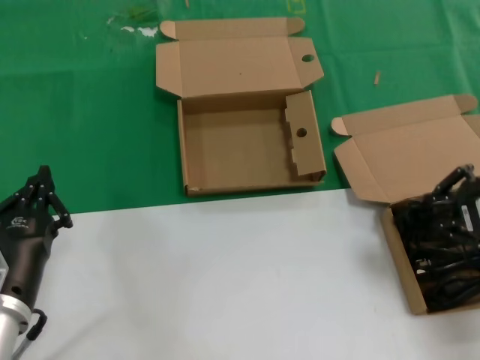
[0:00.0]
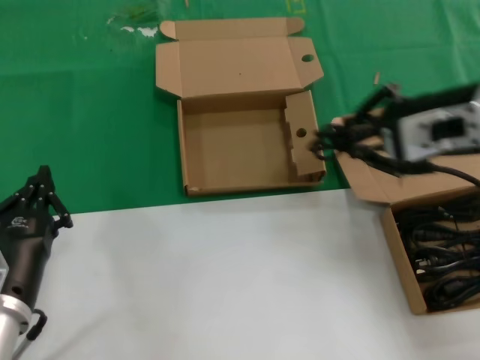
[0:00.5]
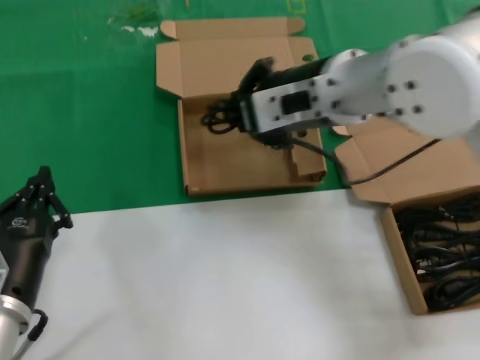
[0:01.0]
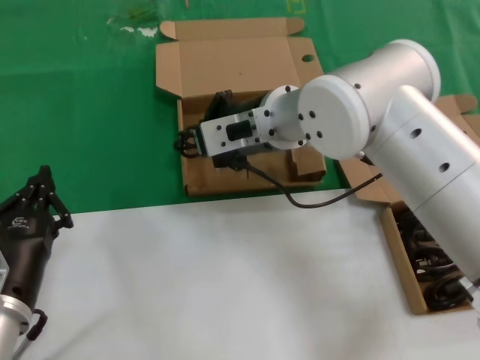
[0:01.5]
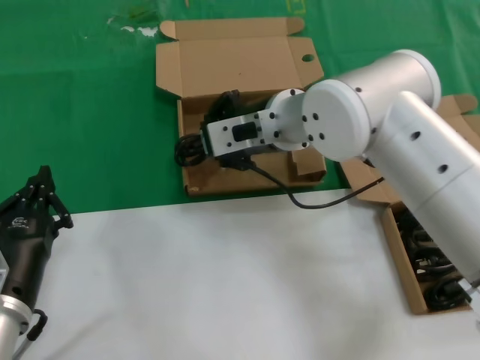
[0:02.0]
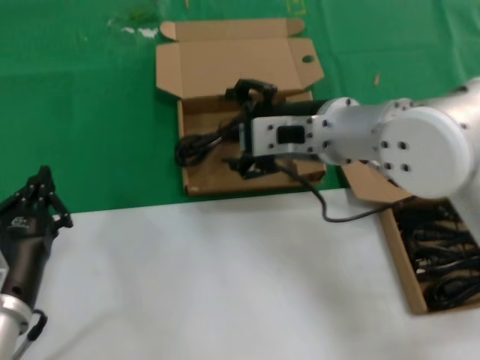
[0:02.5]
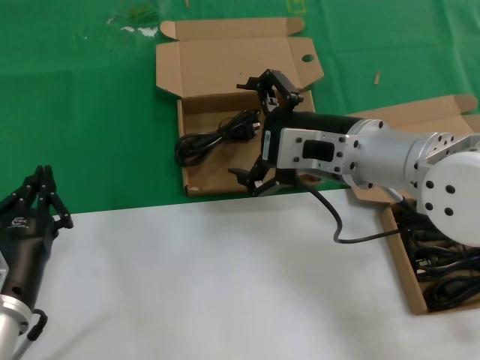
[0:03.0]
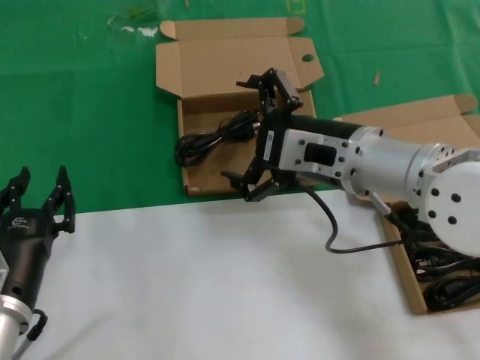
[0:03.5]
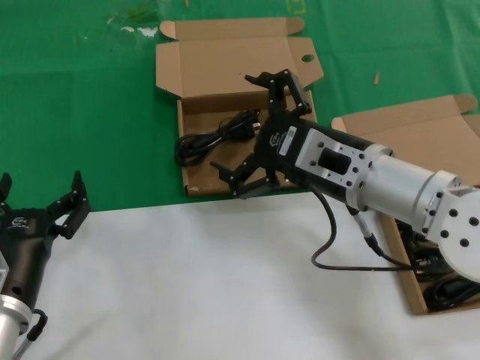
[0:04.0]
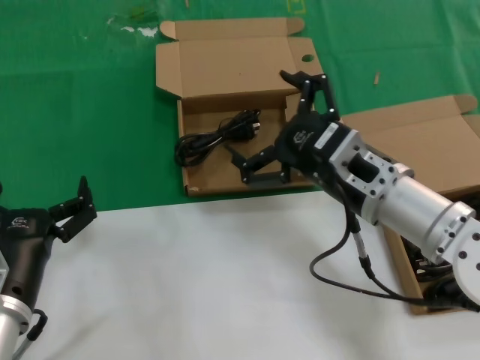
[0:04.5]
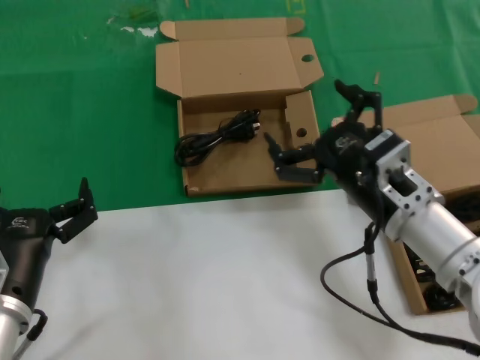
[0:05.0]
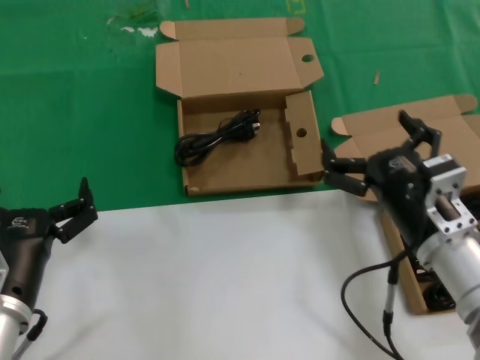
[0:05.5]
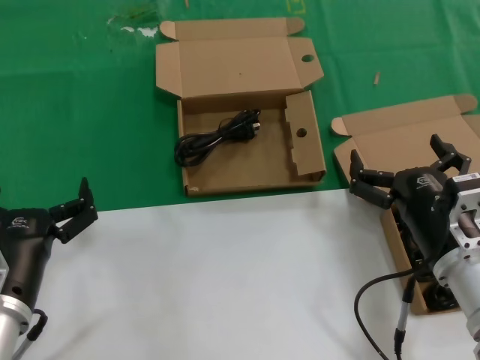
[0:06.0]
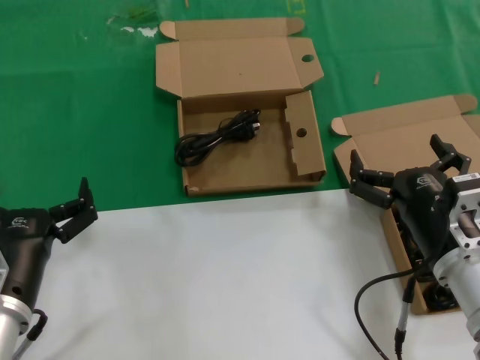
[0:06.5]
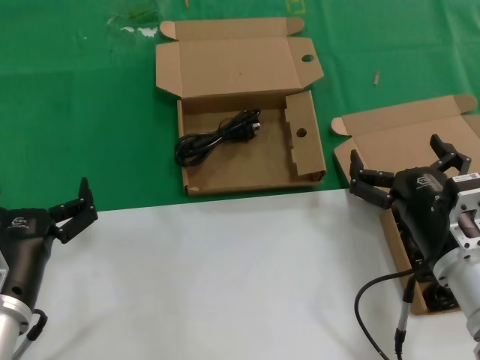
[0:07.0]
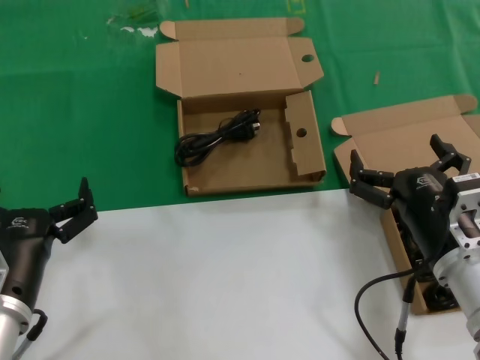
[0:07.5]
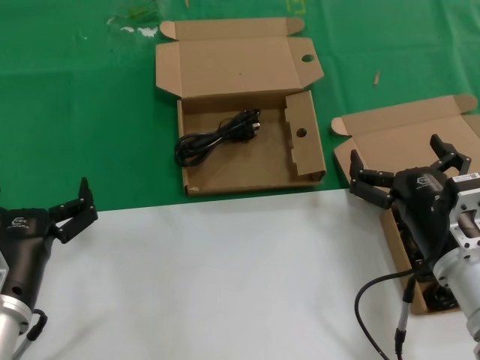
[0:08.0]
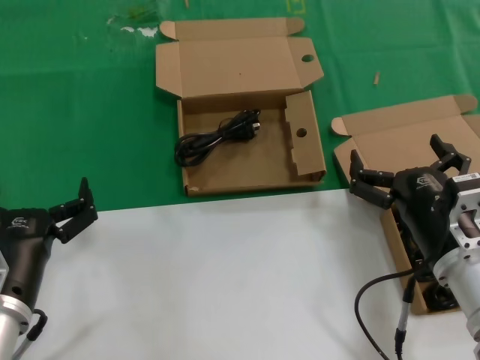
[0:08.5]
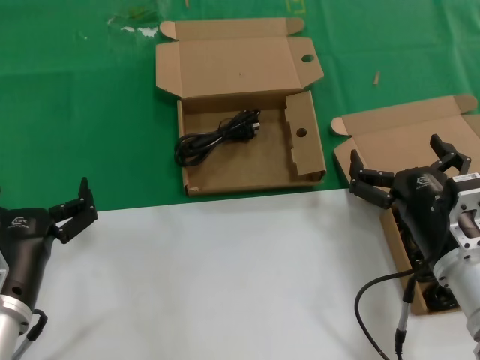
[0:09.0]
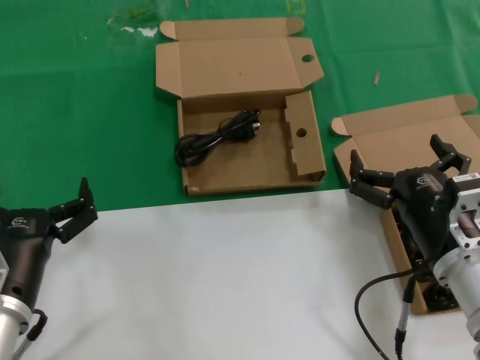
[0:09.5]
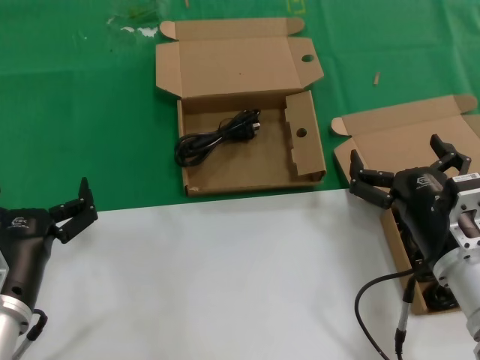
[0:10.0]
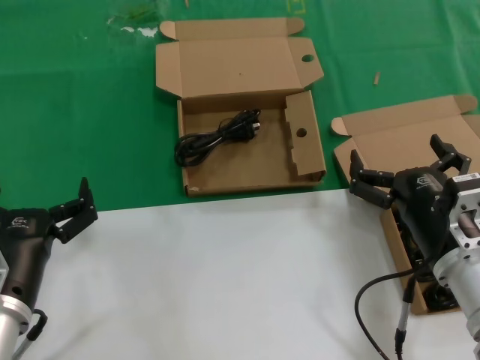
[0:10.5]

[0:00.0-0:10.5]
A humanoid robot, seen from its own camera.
Task of the whole recording: take the parts from the box containing them and put them into an empty box.
Step, 0:00.0 to 0:02.0: Place the data cable in the another box.
0:00.0 to 0:02.0: The right hand moves to the left and forward, about 30 cm.
0:02.0 to 0:04.0: The right hand goes approximately 15 cm backward and to the right.
0:04.0 to 0:06.5: The right hand moves downward, to the right and backward, roughly 15 cm.
0:06.5 to 0:10.5: Both hands stay put.

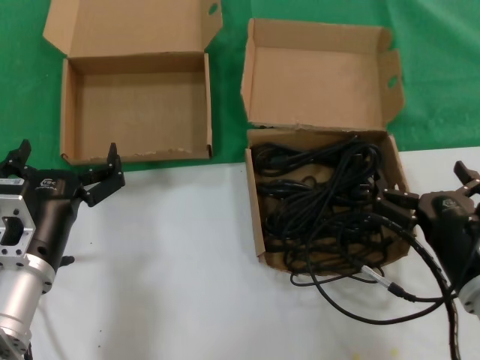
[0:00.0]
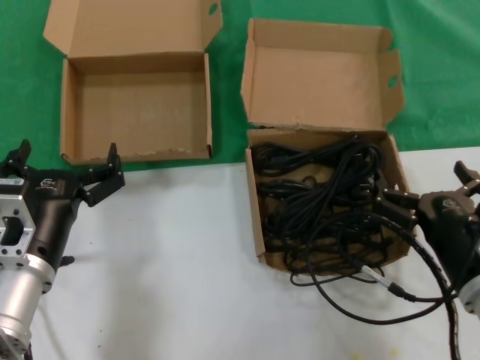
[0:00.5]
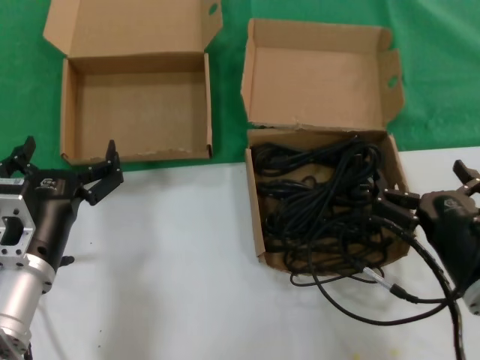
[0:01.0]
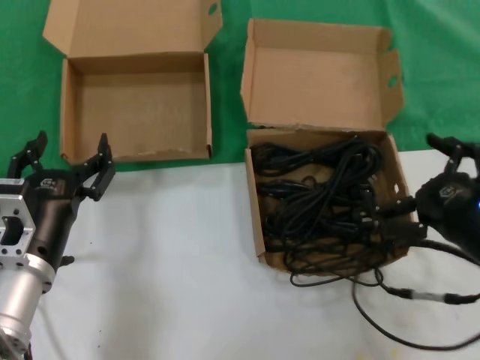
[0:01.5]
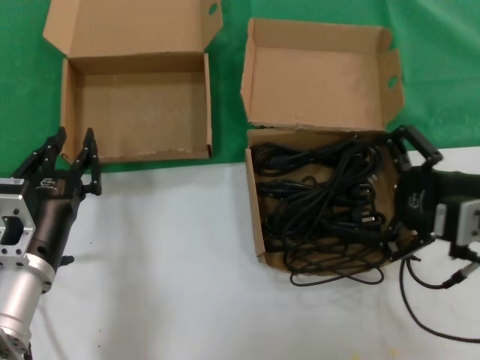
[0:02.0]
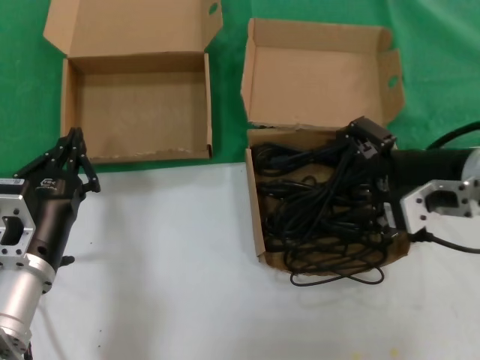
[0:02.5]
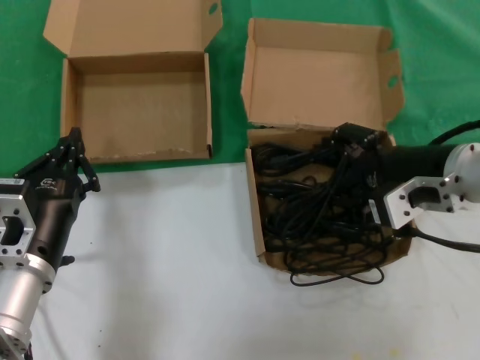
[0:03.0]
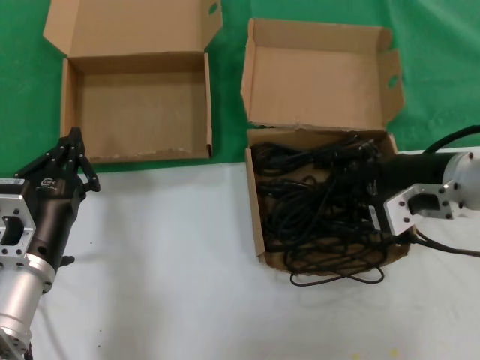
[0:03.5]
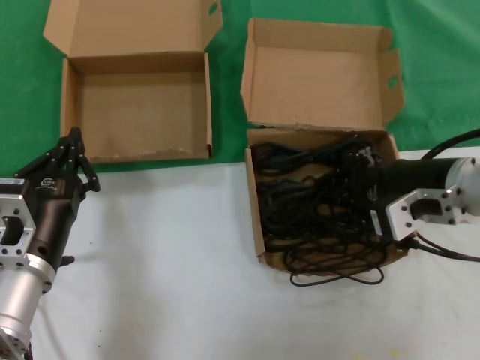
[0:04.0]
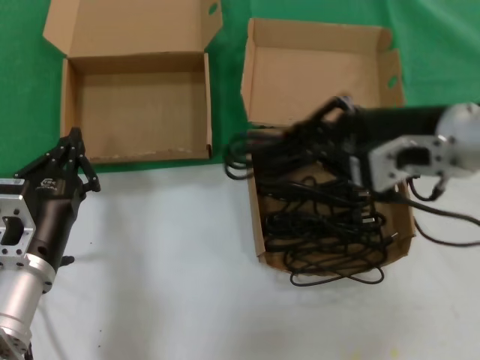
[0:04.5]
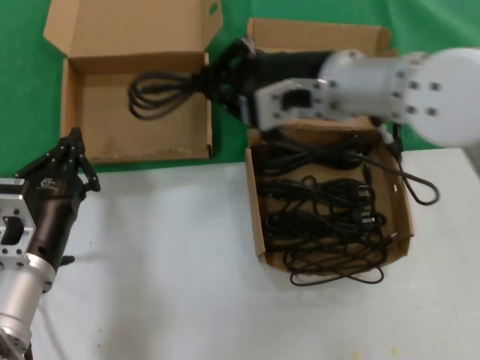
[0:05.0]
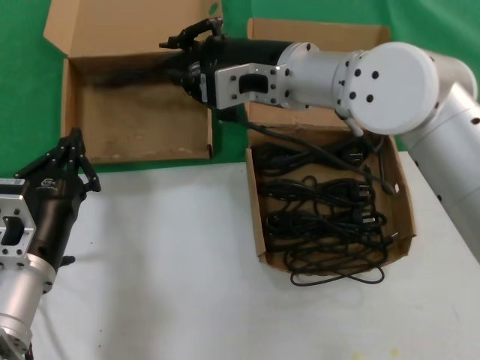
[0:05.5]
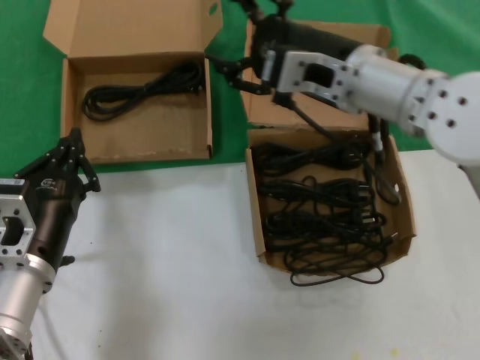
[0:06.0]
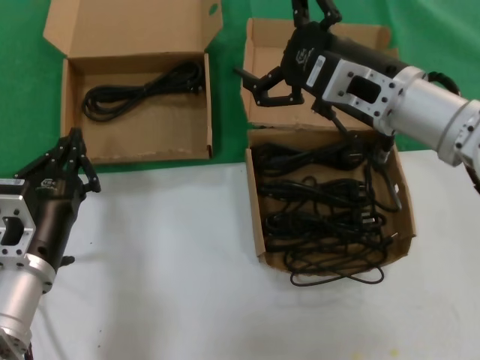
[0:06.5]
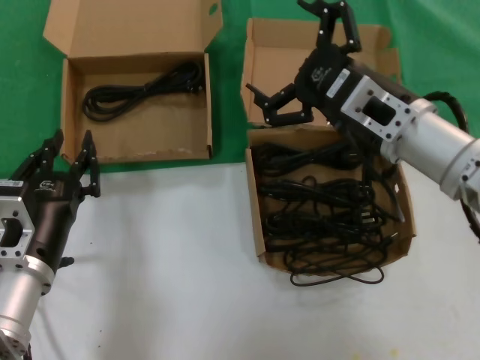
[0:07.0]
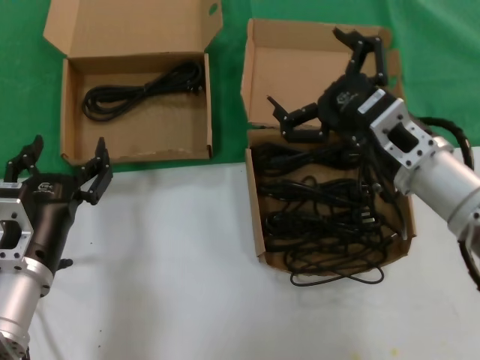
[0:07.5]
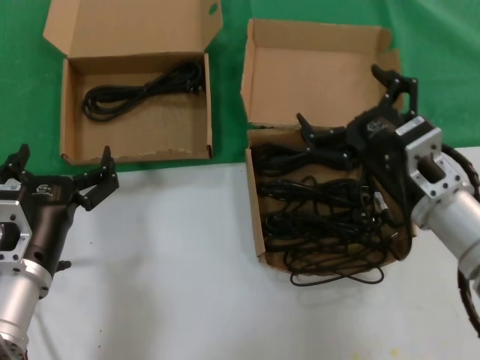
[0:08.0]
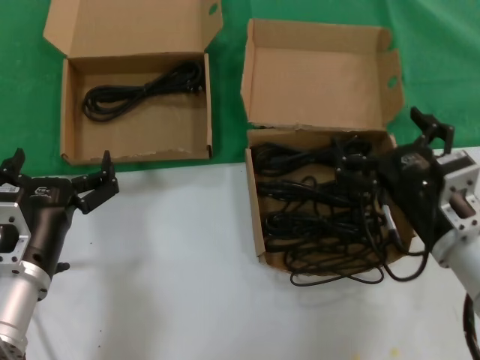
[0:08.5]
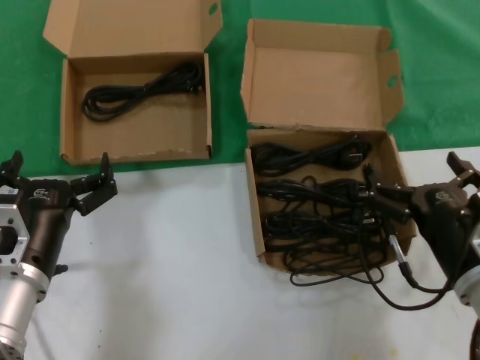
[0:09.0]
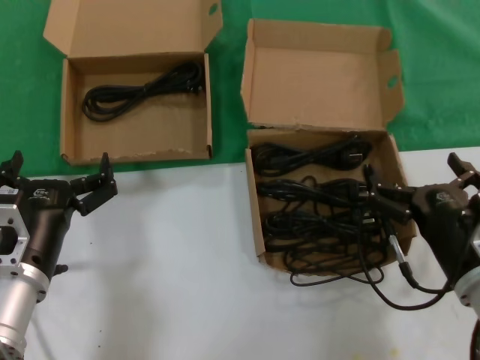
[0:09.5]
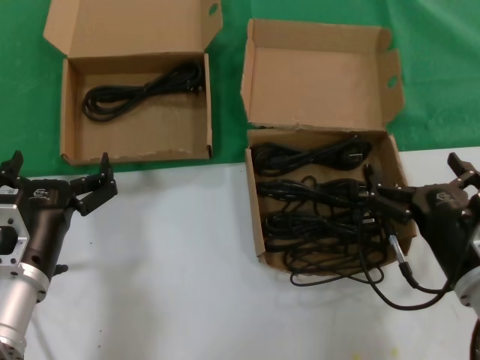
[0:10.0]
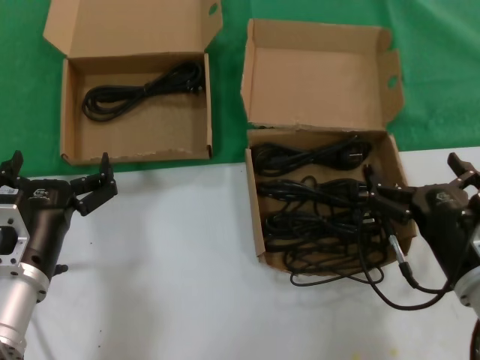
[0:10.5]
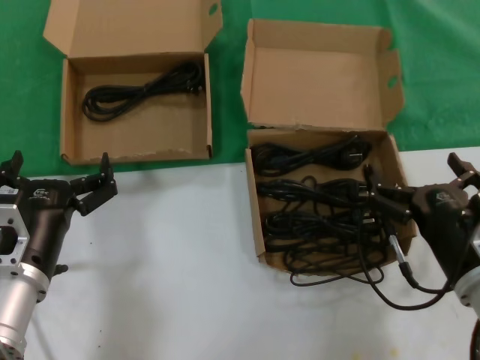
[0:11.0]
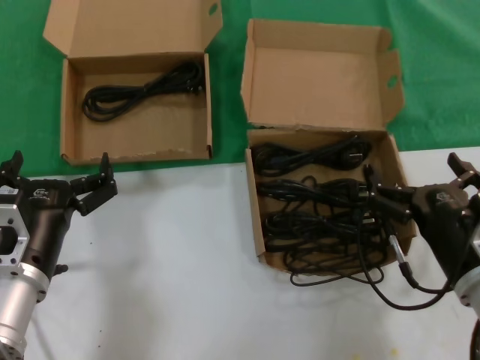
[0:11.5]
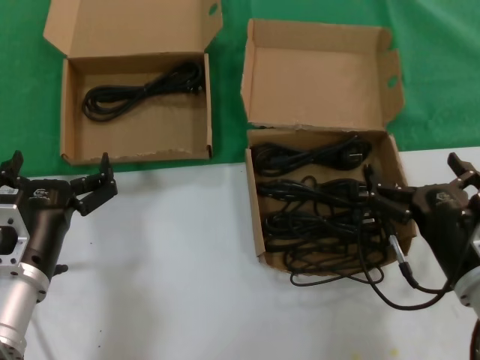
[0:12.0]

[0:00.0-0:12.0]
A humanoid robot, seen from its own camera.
Task of the whole recording: take the parts from the box containing them and put them into an empty box.
Step, 0:00.0 to 0:03.5: Grasp the data cable.
Step, 0:04.0 to 0:05.5: Place the data cable in the another box.
0:00.0 to 0:02.0: The right hand travels upward by some 15 cm.
0:02.0 to 0:04.0: The right hand moves forward and to the left, roughly 10 cm.
0:04.0 to 0:06.0: The right hand travels to the left, forward and upward by some 15 cm.
0:06.0 to 0:08.0: The right hand heads downward, backward and to the right, covering roughly 20 cm.
0:08.0 to 0:10.0: The right hand heads downward and backward, covering some 10 cm.
0:10.0 to 0:12.0: Neither hand changes place.

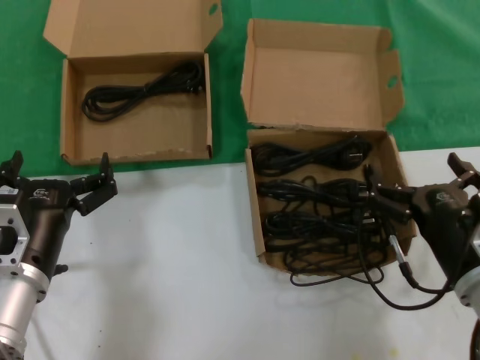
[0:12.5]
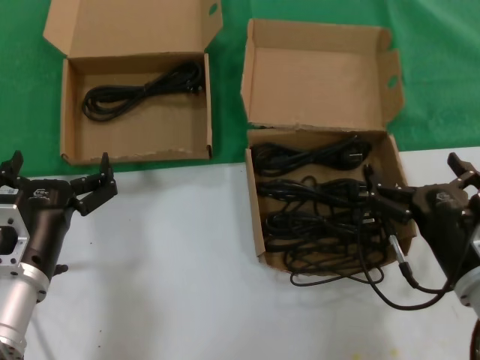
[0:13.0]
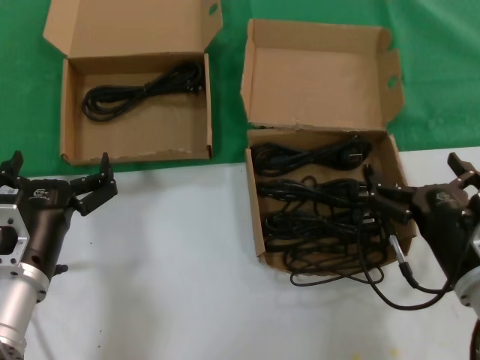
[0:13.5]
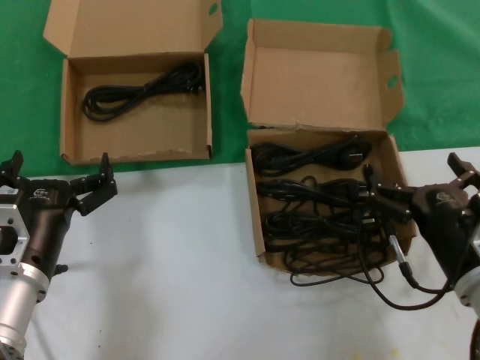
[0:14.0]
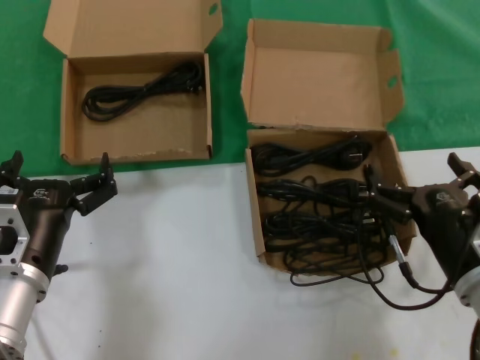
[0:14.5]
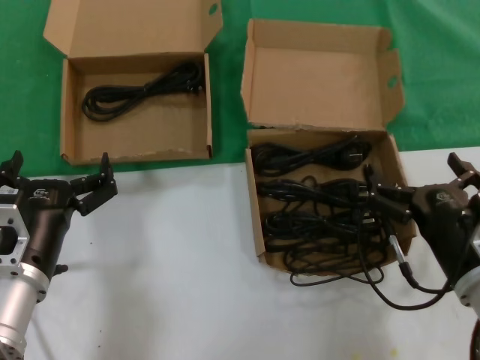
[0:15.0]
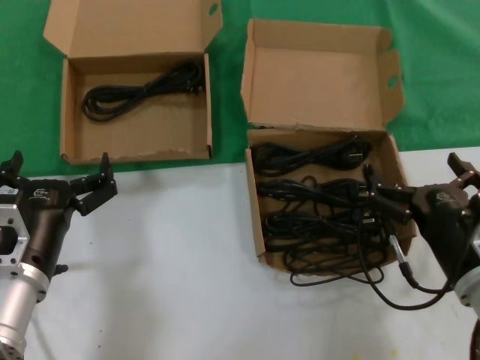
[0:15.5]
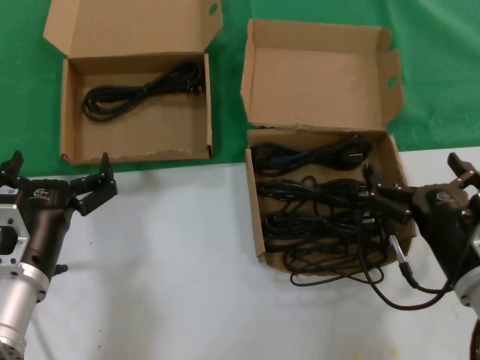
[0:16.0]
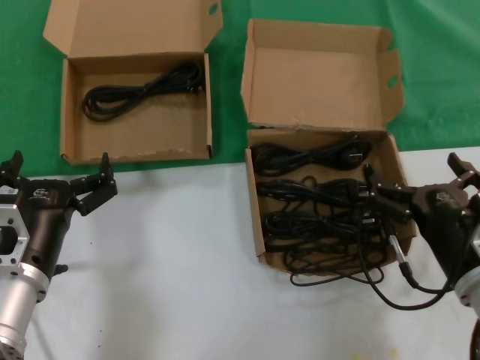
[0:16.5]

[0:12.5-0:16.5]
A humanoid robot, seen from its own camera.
Task of the whole recording: take the parts from the box containing them and put them into an empty box.
0:12.5 to 0:16.5: Both hands stay put.
